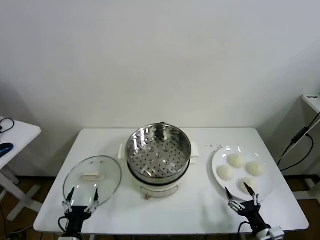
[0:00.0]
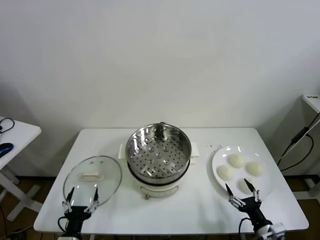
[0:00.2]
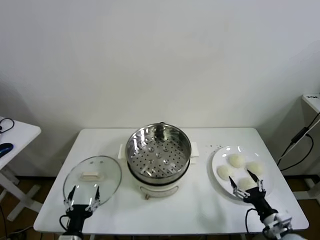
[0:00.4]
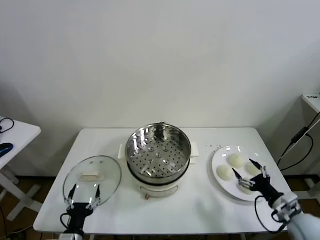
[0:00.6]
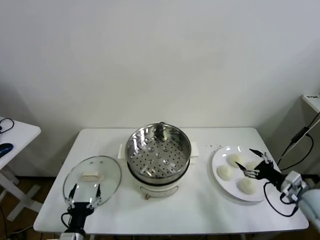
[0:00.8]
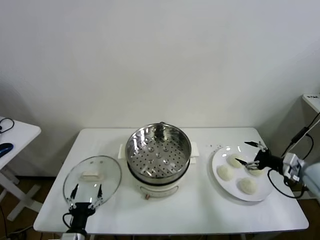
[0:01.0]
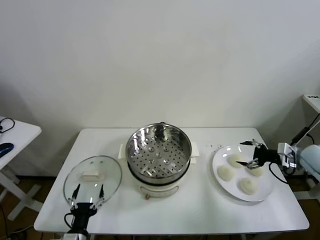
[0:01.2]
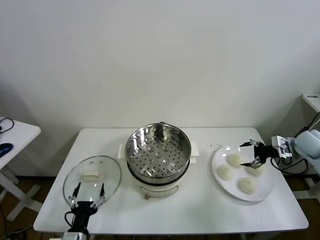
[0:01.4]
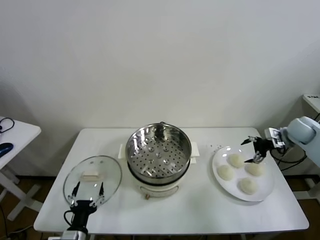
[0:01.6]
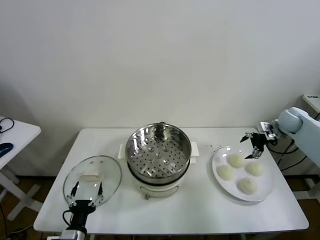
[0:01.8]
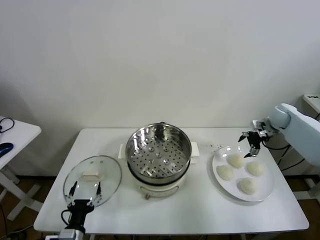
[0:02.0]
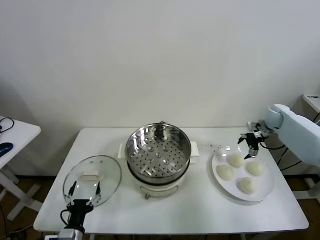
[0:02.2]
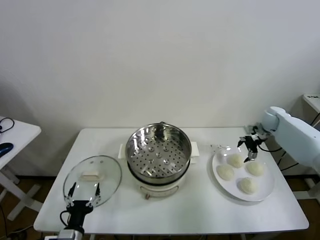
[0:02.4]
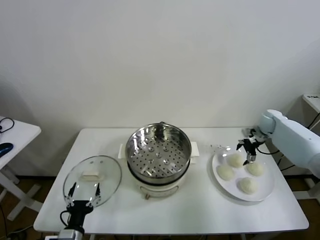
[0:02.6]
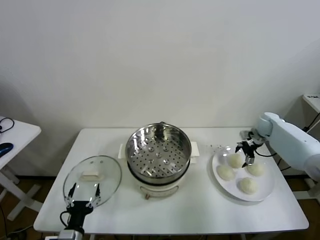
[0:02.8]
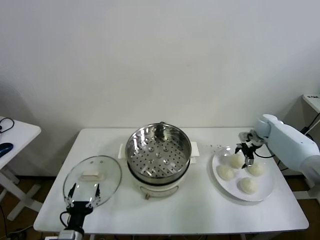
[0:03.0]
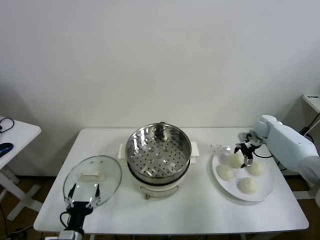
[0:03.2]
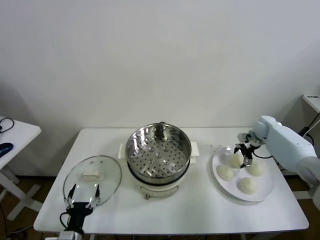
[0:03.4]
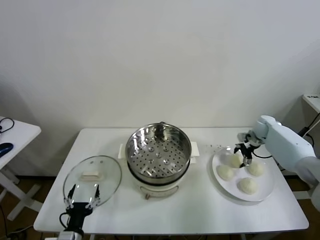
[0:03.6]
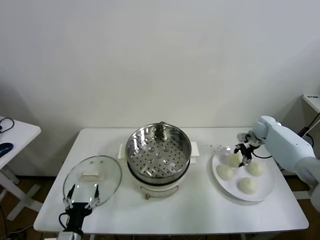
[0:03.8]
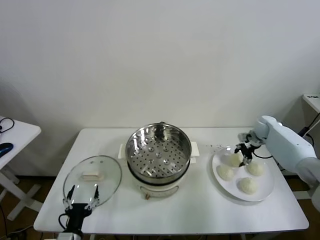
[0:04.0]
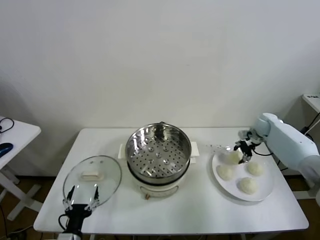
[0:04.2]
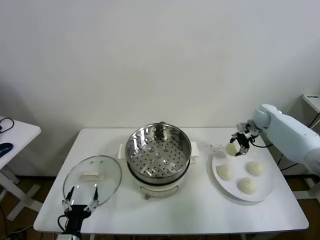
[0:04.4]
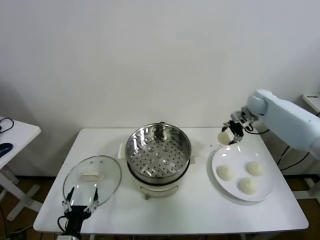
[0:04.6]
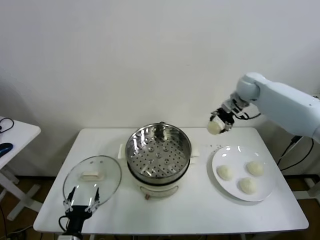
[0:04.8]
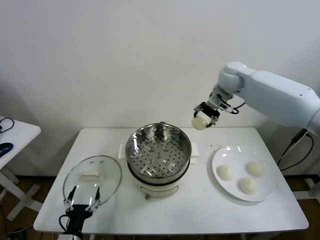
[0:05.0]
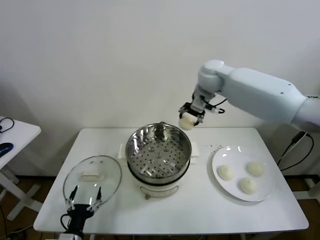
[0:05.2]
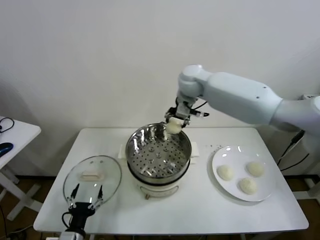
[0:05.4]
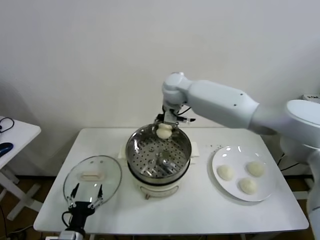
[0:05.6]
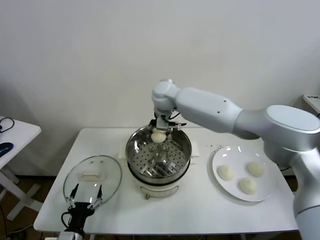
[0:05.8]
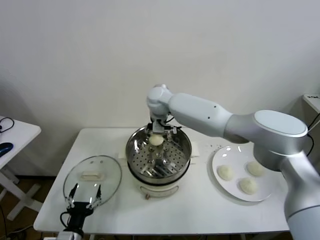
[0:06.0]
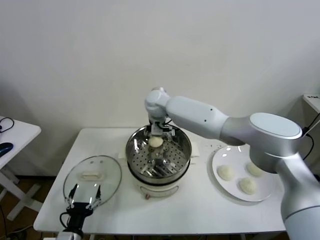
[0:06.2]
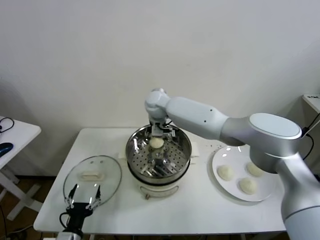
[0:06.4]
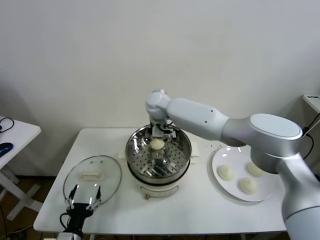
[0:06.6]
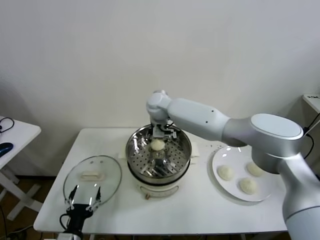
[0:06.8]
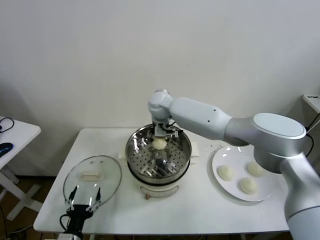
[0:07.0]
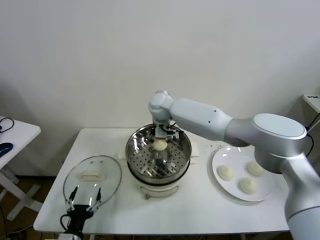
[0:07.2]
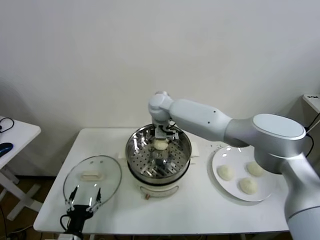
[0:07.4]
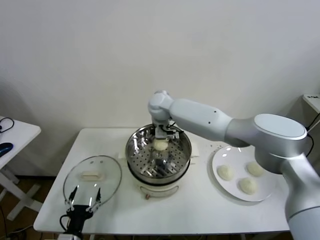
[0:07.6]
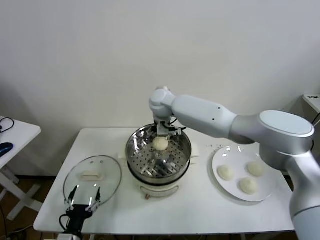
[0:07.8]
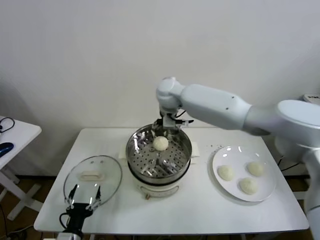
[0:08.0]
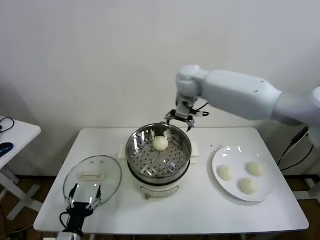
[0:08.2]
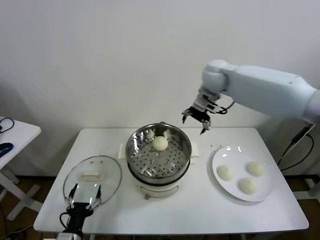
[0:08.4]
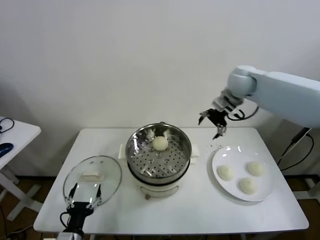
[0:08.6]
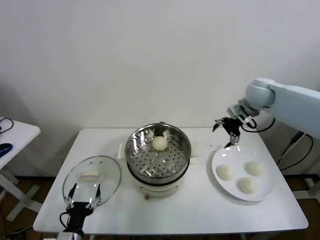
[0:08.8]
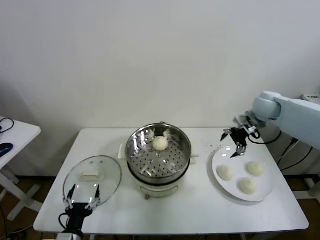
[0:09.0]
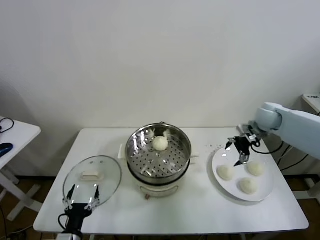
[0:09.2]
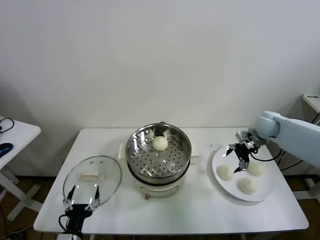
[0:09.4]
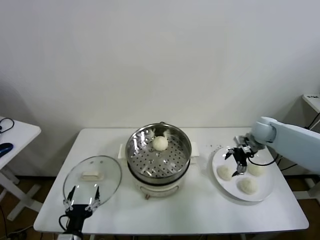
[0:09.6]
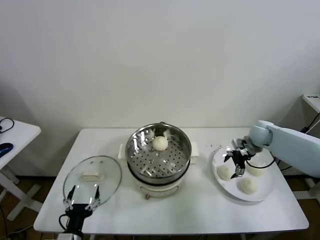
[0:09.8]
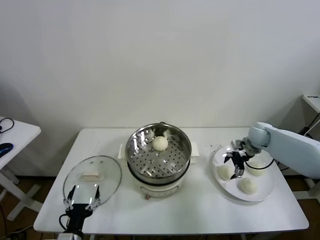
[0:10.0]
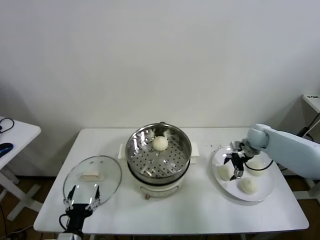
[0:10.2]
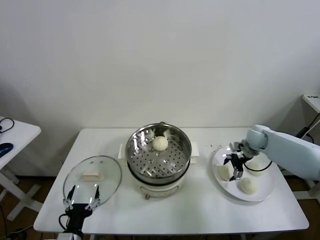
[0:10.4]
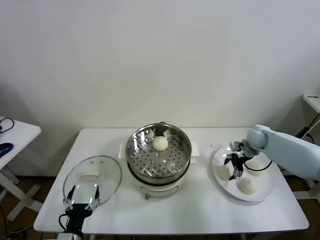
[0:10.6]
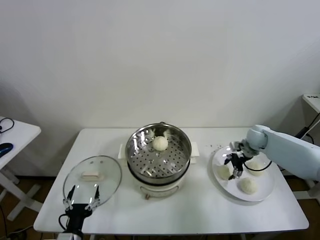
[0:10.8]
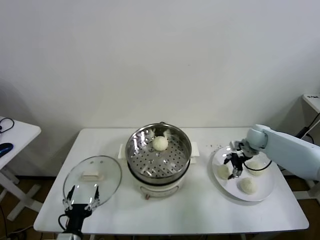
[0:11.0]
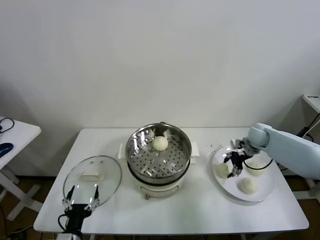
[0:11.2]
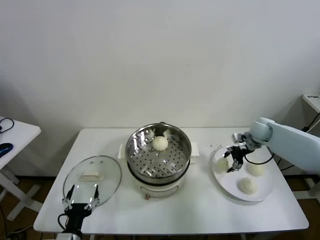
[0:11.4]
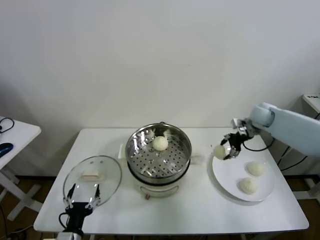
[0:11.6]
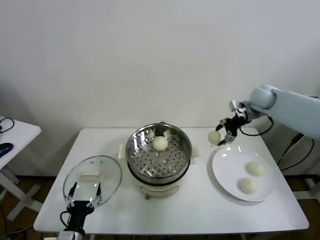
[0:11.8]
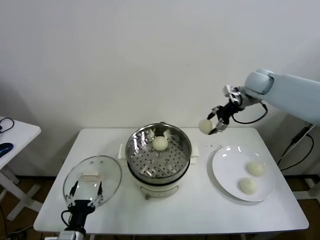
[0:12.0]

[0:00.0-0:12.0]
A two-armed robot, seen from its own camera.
Task of the whole recording: take steamed baozi put them in steamer.
Step, 0.0 to 3.6 s: Grasp the baozi in the plate with right gripper.
Step, 3.8 to 7.6 s: Place the baozi on the steamer with right gripper.
Step, 7.8 to 10.8 s: Grasp the baozi in the plate with right gripper.
1.6 to 3.0 s: The right gripper heads downward, forward and to the left, covering roughly 10 cm.
3.0 to 4.4 s: The right gripper travels upward by some 10 cm, and closes its fingers.
4.4 to 6.0 s: The right gripper travels to the left by approximately 40 cm.
6.0 to 7.6 s: The right gripper opens up.
7.6 to 9.0 s: The right gripper heads to the right, covering some 35 cm.
9.0 to 10.4 s: The right gripper is displaced downward by about 15 cm.
10.4 to 12.0 s: The right gripper shifts about 25 cm upward, and closes.

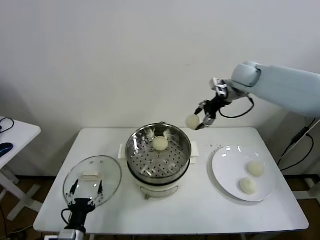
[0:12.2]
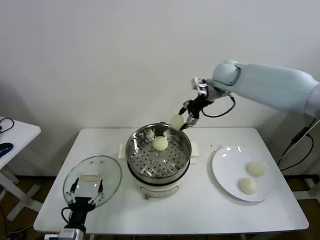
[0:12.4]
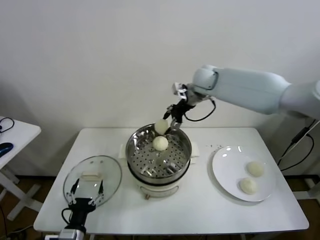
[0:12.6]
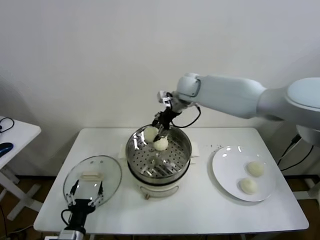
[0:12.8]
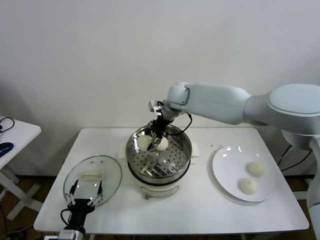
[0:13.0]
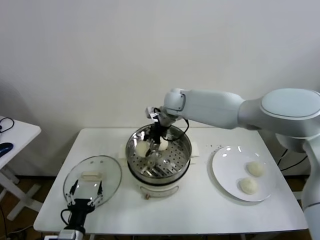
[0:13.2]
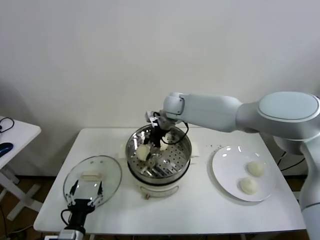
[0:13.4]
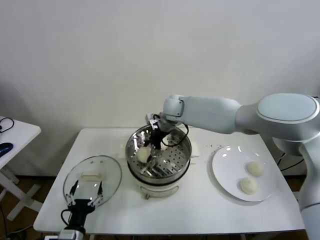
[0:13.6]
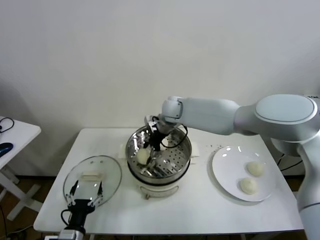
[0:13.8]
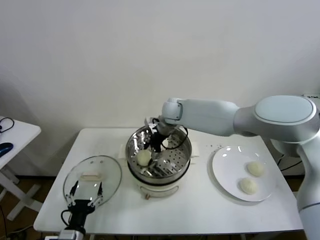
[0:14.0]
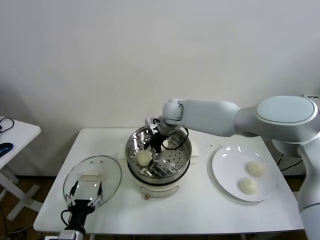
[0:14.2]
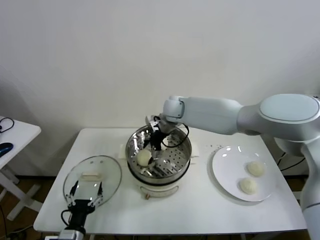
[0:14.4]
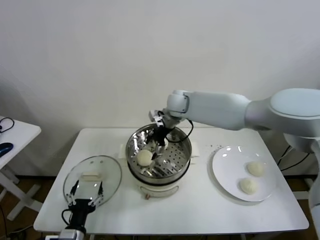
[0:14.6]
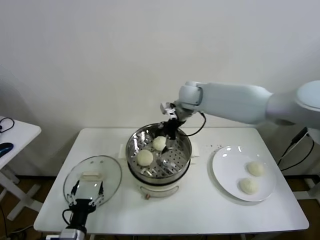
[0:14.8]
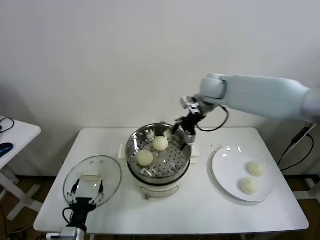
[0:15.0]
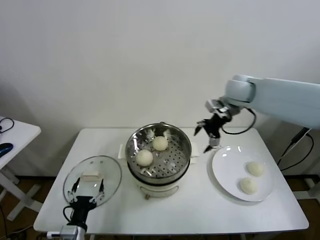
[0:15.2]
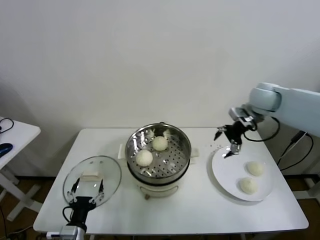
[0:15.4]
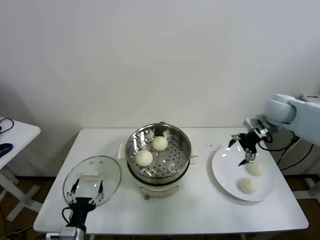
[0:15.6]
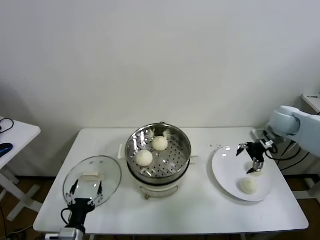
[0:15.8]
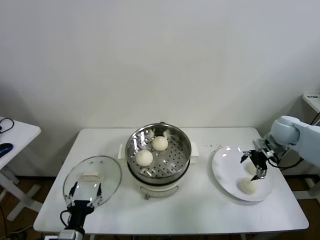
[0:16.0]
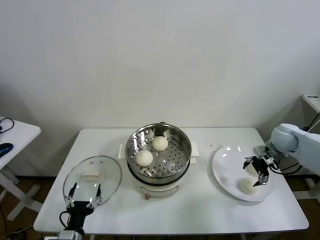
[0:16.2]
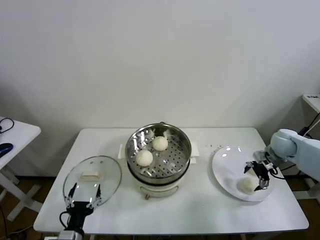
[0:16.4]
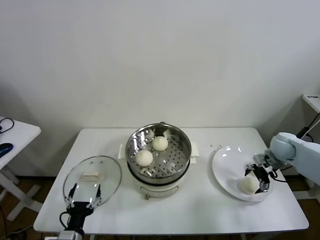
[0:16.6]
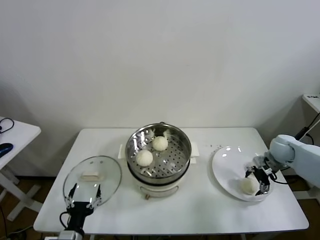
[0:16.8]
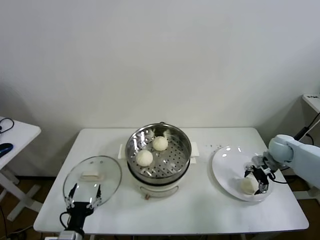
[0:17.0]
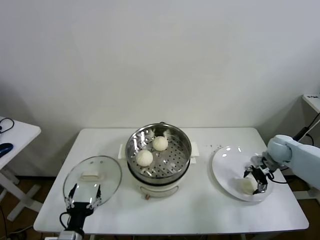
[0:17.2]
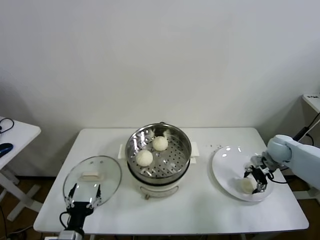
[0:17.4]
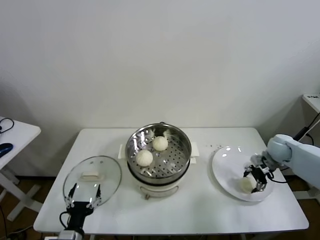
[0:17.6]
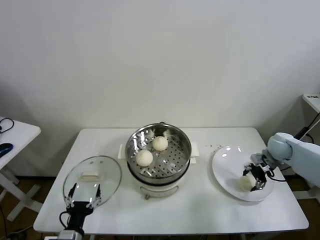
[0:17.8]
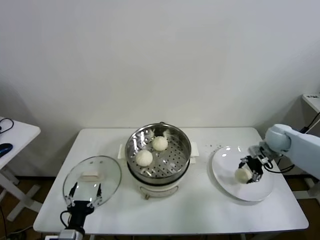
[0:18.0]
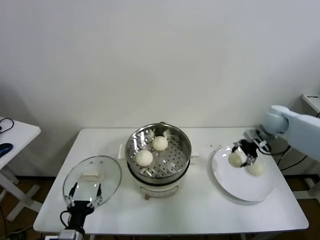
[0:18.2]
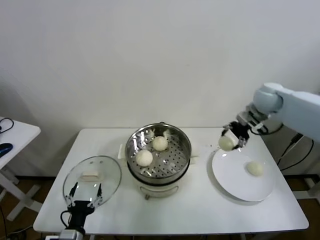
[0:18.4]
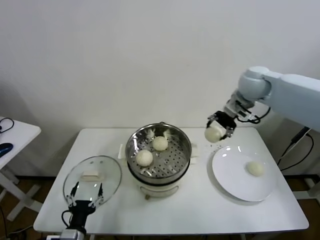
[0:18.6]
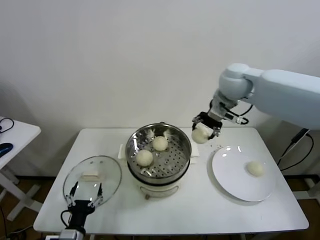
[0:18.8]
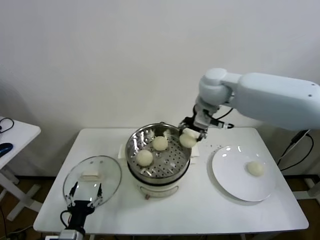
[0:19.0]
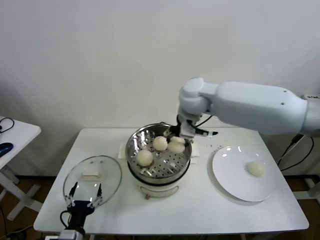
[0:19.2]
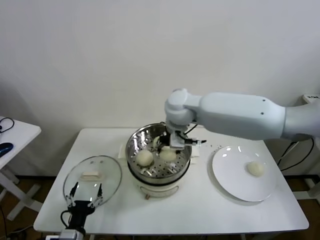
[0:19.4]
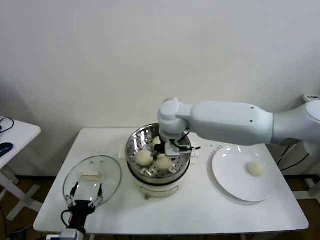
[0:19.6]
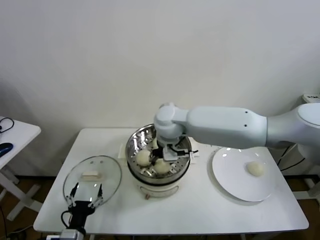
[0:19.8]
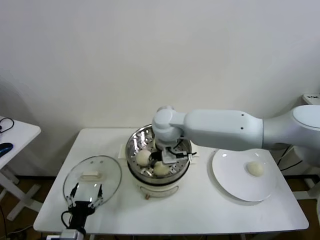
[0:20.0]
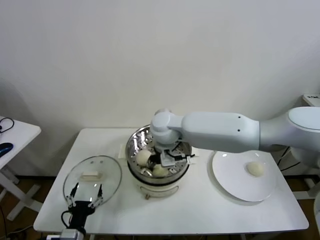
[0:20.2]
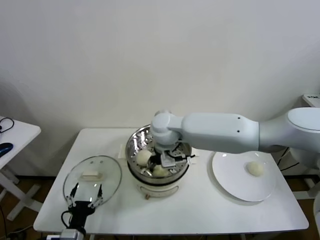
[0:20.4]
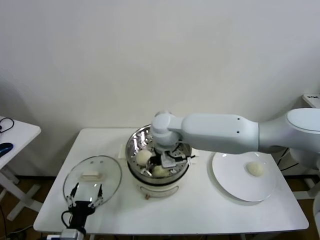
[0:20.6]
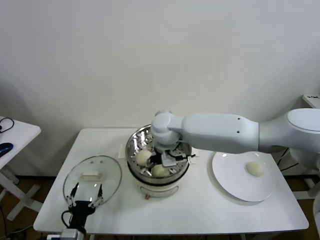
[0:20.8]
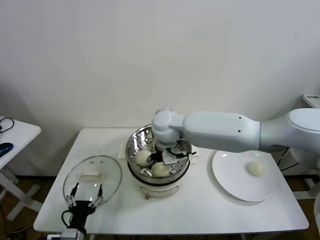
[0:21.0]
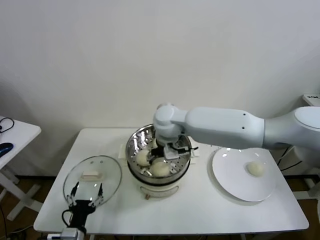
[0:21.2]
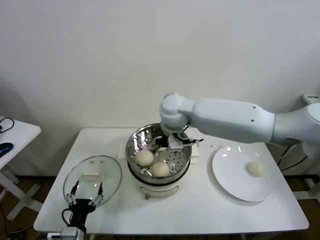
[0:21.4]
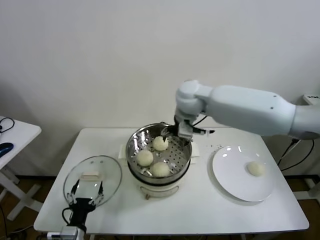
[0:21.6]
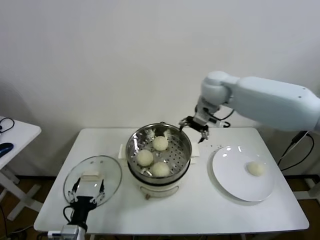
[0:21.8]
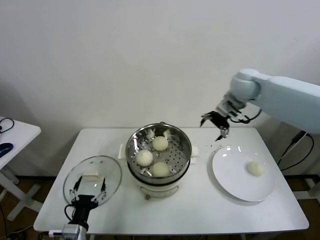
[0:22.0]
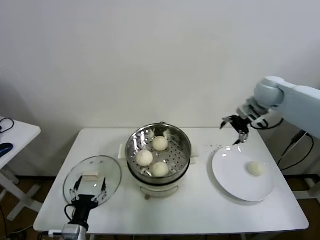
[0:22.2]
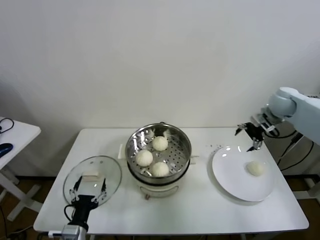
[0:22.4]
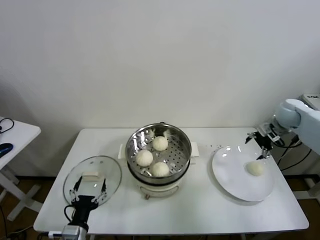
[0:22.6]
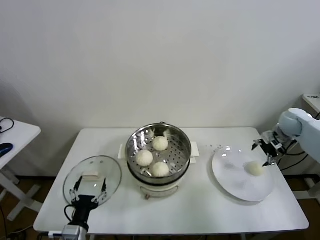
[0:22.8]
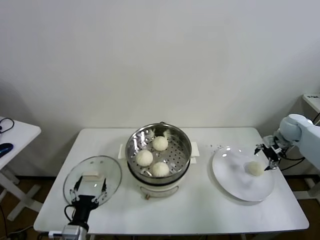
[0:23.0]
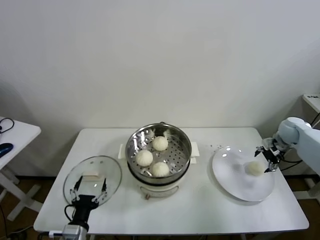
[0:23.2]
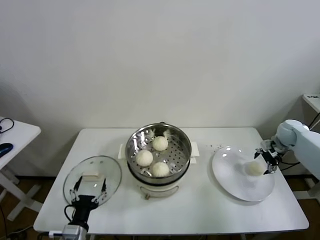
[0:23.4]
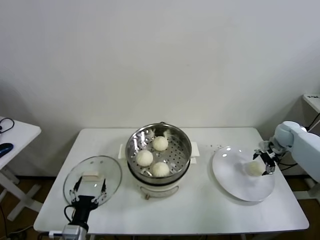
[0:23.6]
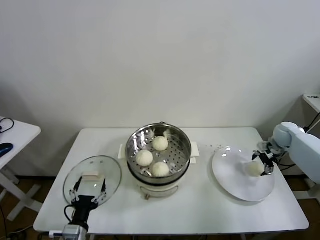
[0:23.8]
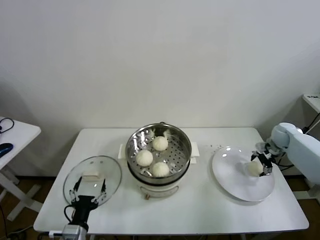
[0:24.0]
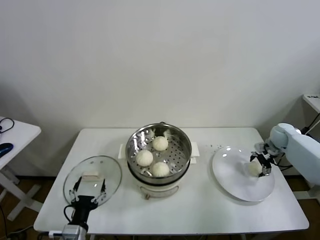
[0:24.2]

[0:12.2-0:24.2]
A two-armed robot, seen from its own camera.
Task of the whole recording: take steamed baozi put them in steamer.
Step, 12.2 to 14.2 s: Place the baozi on the steamer with right gripper.
Step, 14.4 to 17.2 s: Grasp the baozi in the plate with right gripper.
Step, 17.4 to 20.8 s: Place the baozi on the steamer with right gripper.
12.2 to 13.8 s: The right gripper is displaced to the left and downward by some 25 cm.
13.8 to 15.2 s: The right gripper heads to the right and upward, covering some 25 cm, and opens up.
15.2 to 16.6 s: The right gripper heads downward and to the right, covering roughly 25 cm.
16.6 to 18.2 s: The right gripper is displaced upward, to the left and forward by approximately 15 cm, and closes its fingers.
18.2 to 19.8 s: The right gripper goes some 35 cm to the left.
19.8 to 21.2 s: The right gripper opens.
21.2 to 22.6 s: The right gripper is displaced to the right by approximately 40 cm.
22.6 to 24.2 s: The right gripper is displaced downward by some 10 cm.
